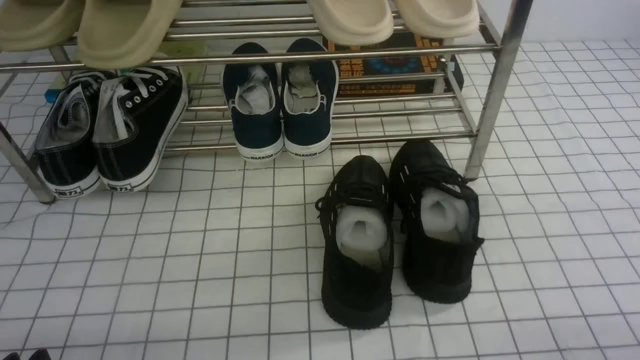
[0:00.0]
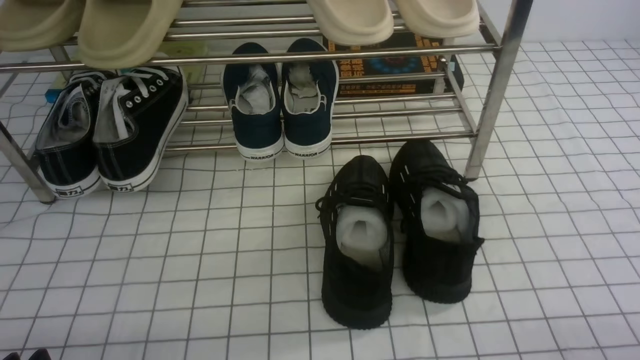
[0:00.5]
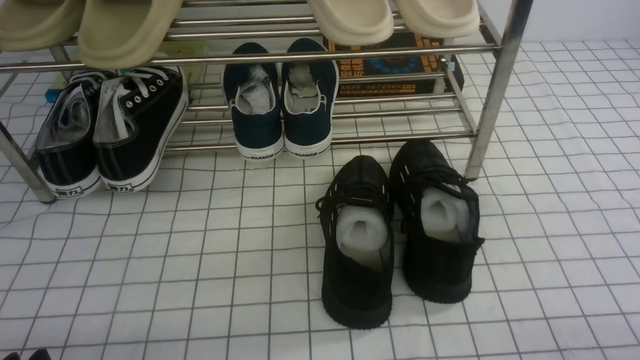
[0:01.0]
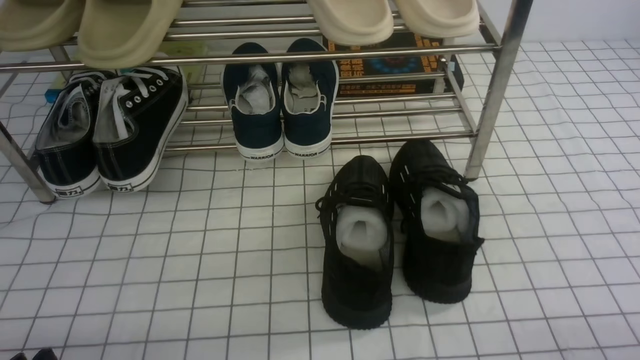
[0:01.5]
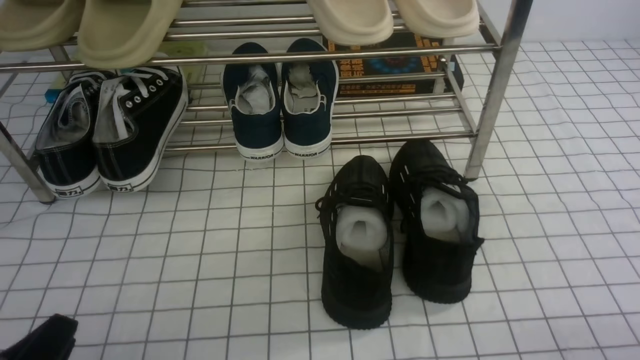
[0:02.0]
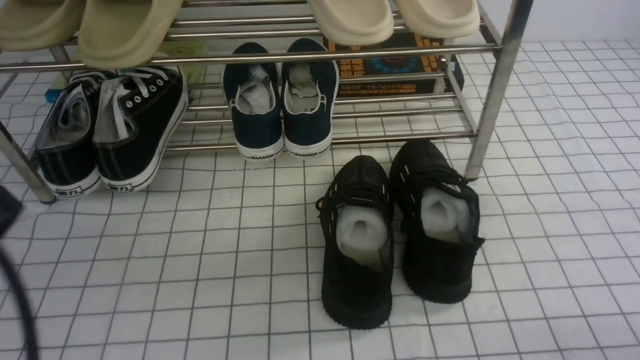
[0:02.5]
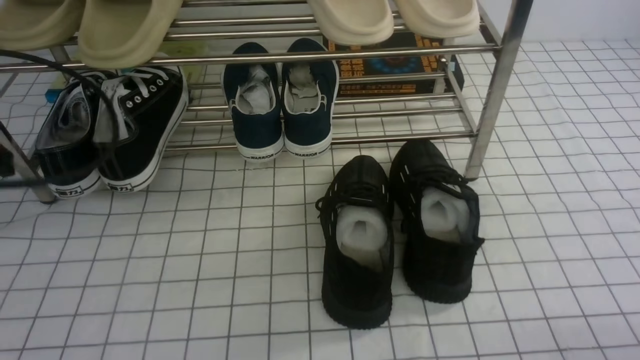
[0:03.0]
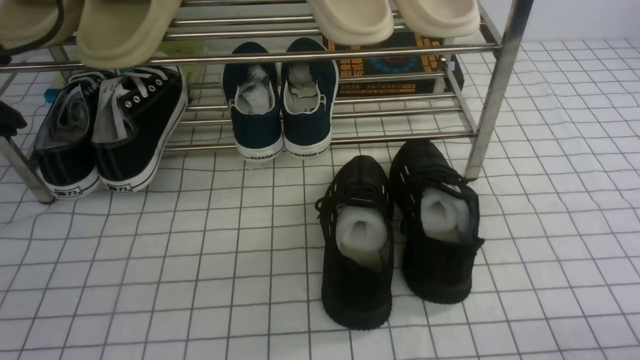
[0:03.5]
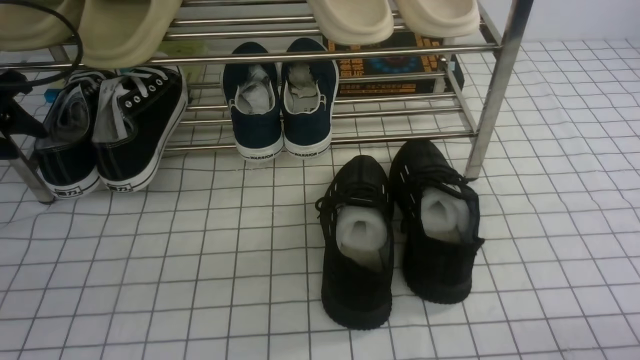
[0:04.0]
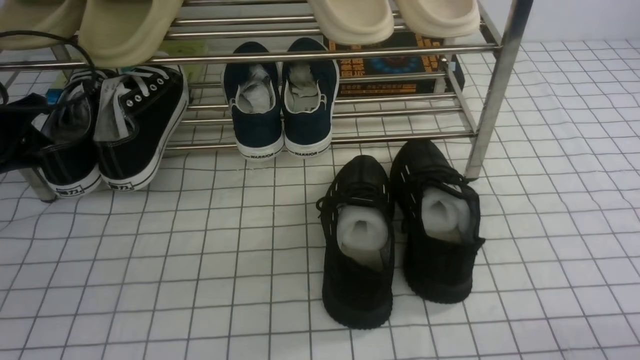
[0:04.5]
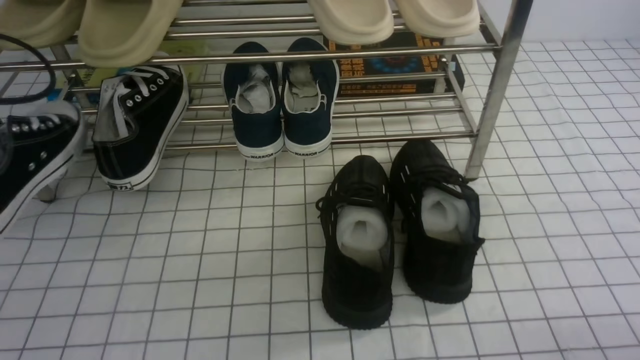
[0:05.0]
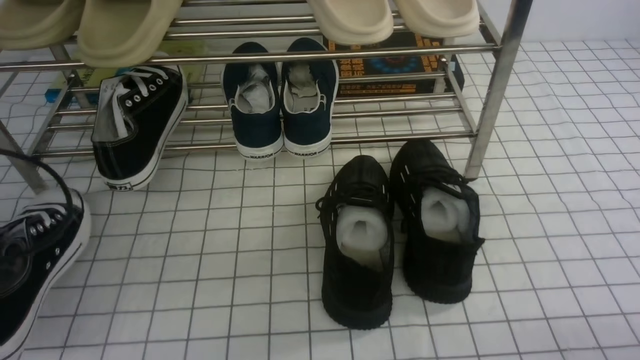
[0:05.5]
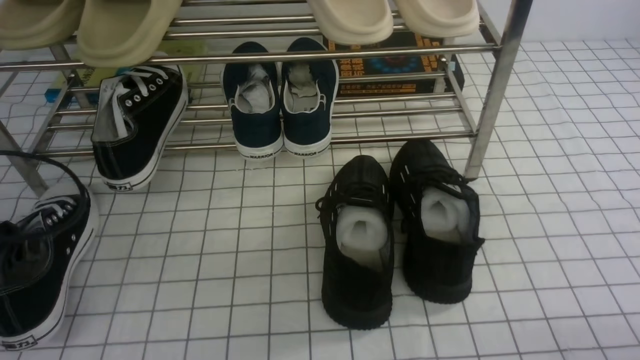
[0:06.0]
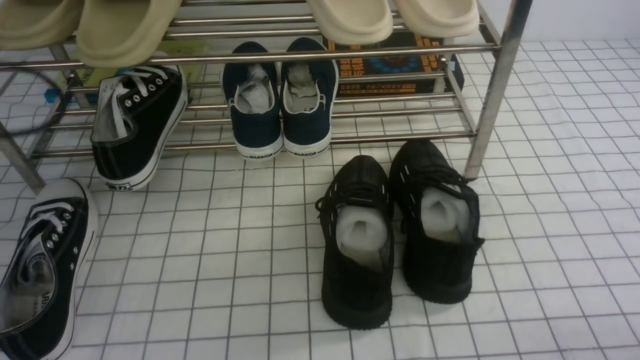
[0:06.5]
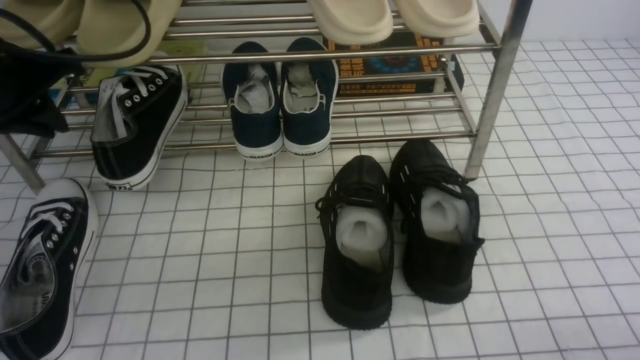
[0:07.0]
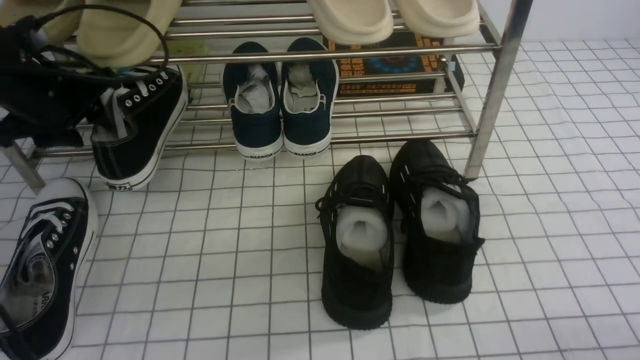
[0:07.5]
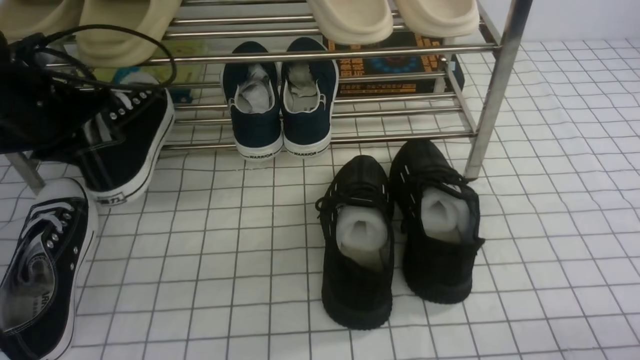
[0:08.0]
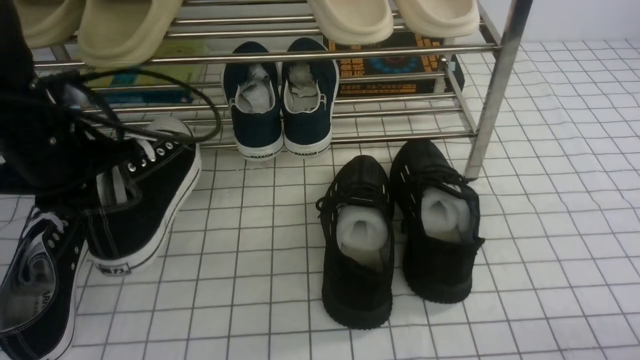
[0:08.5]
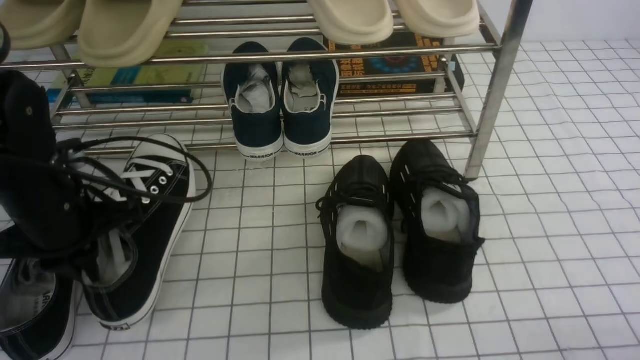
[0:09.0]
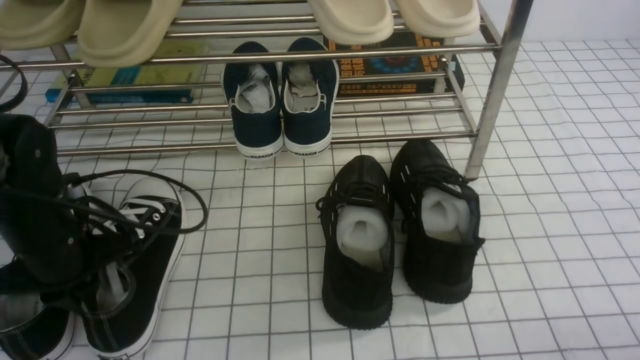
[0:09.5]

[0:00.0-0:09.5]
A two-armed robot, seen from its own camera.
Step, 0:00.0 to 0:04.5: use the left arm to clamp a shoe on the left side of the shoe rack.
Step, 0:05.0 to 0:06.0: Use your left arm to remove the clamped shoe from the shoe rack and put it down.
Step, 0:06.5 to 0:07.5: use the left arm to clamp a shoe on the left side of the shoe rack.
0:02.0 to 0:04.0: The left gripper is displaced forward by some 30 cm, and opens up.
0:04.0 to 0:05.5: The left gripper heads backward, covering about 15 cm, and closes its fingers.
0:05.5 to 0:07.5: The left gripper travels forward by about 20 cm, and opens its fingers.
0:07.5 to 0:09.5: The left gripper travels backward and downward by about 15 cm, and closes up.

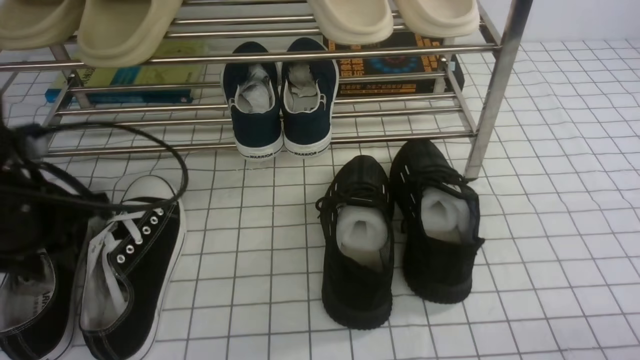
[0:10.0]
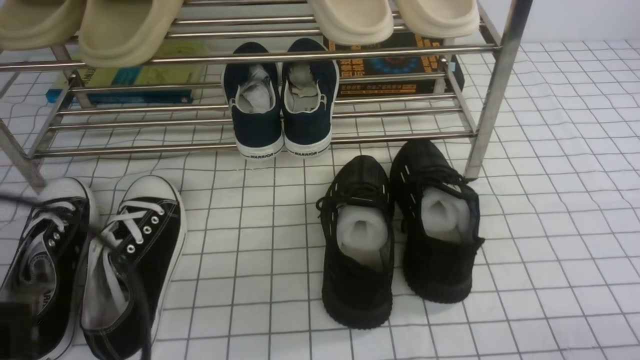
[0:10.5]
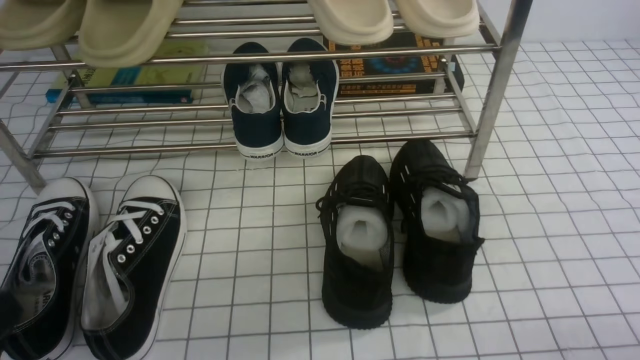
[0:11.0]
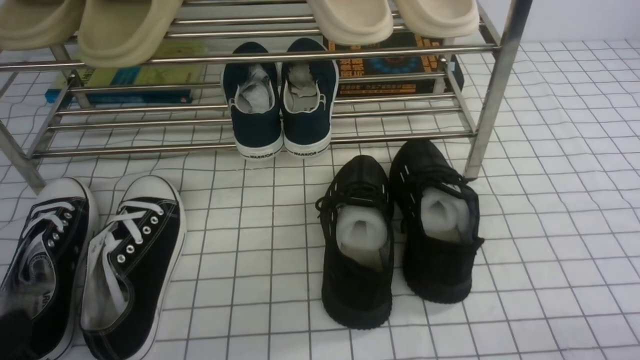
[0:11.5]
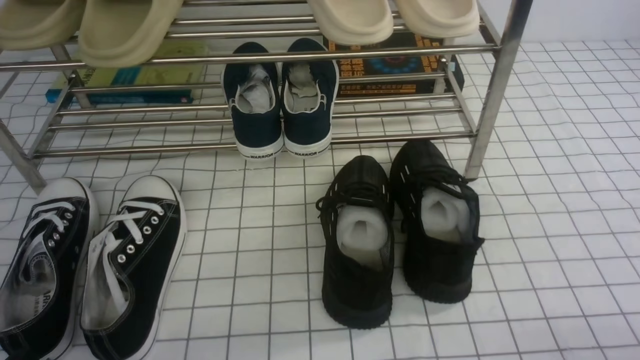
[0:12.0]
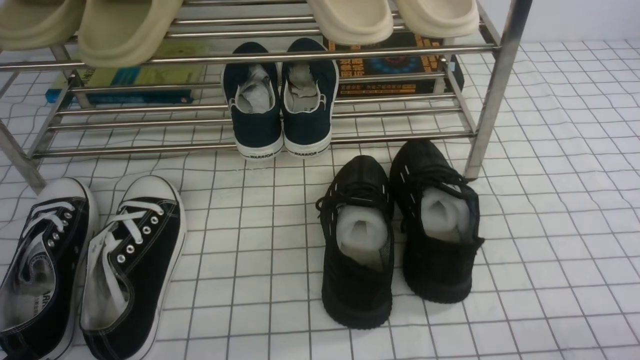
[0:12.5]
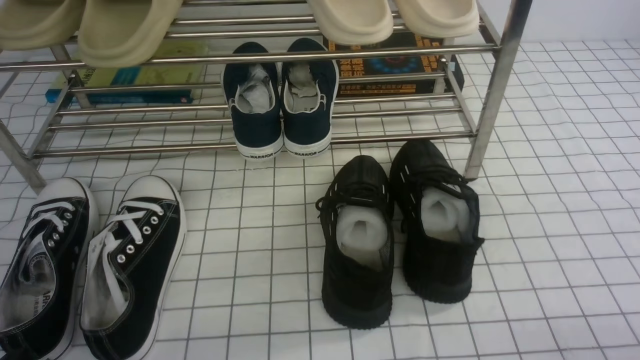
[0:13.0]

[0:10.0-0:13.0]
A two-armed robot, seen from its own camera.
0:10.0 to 0:11.5: The left gripper goes about 20 cm backward, and closes its fingers.

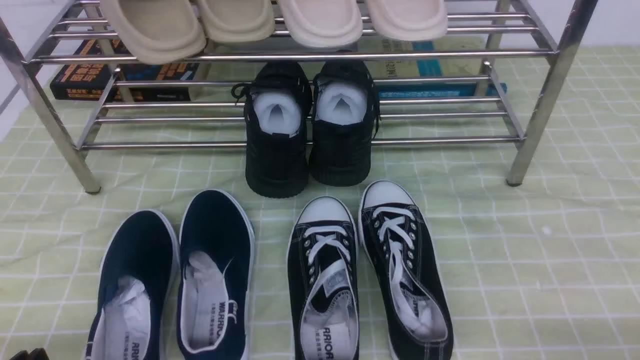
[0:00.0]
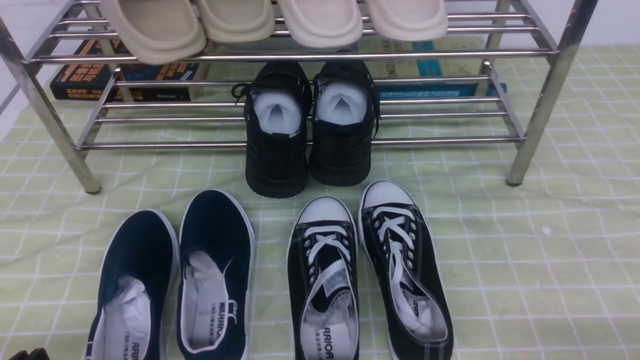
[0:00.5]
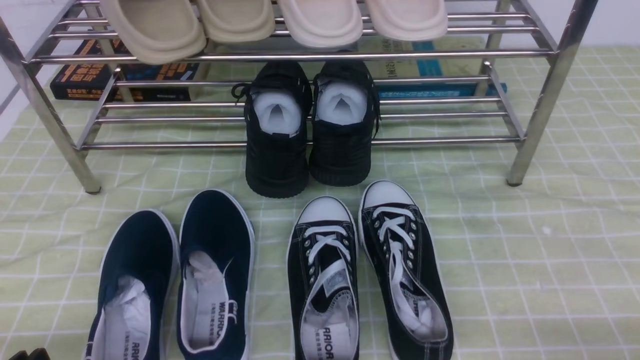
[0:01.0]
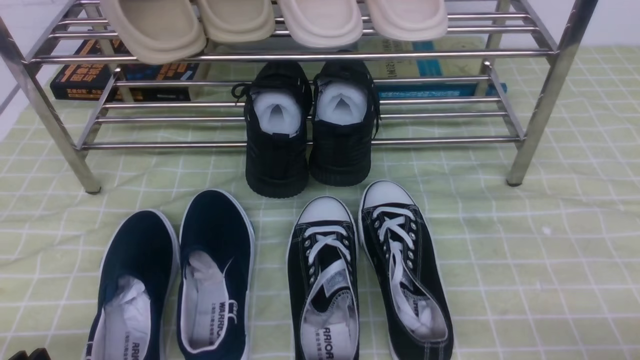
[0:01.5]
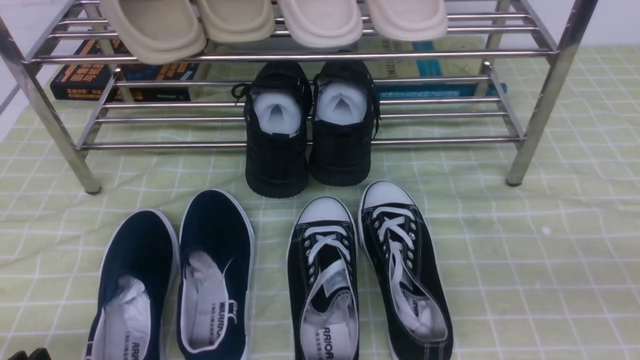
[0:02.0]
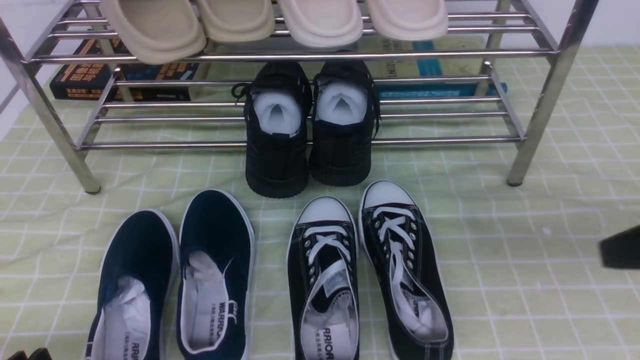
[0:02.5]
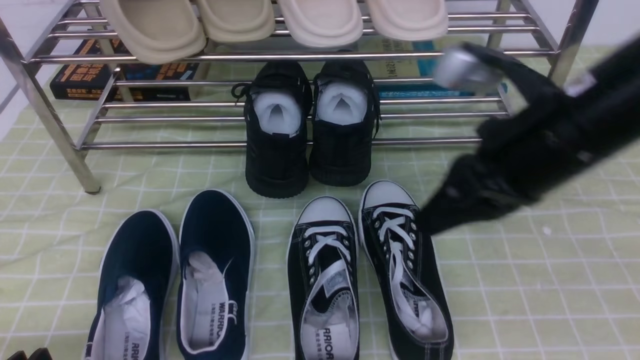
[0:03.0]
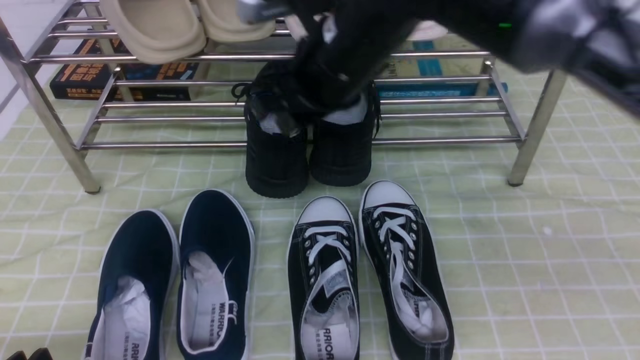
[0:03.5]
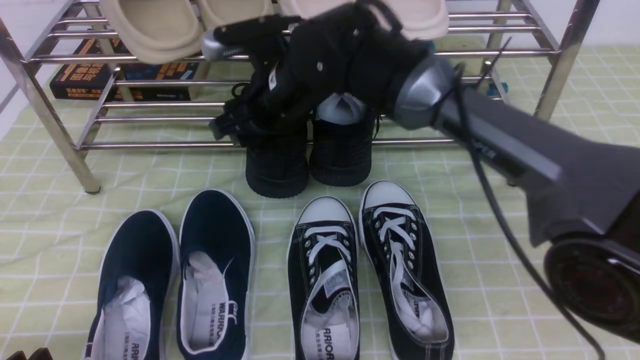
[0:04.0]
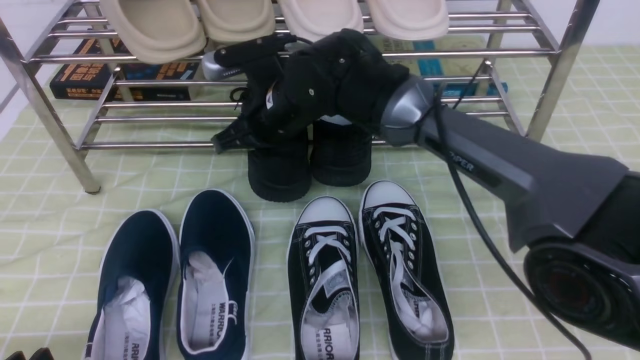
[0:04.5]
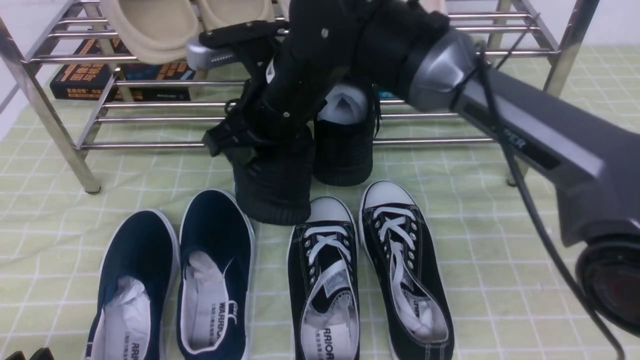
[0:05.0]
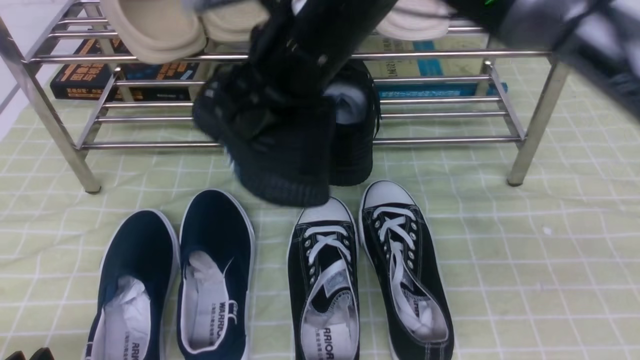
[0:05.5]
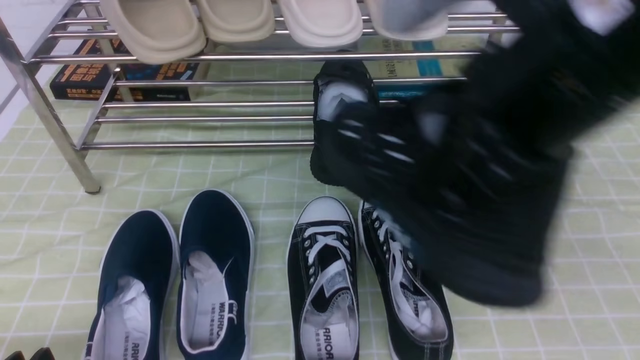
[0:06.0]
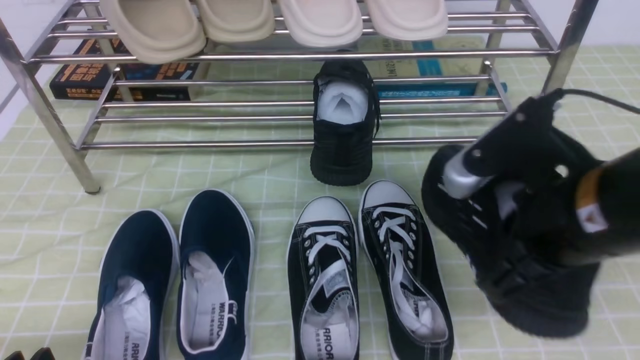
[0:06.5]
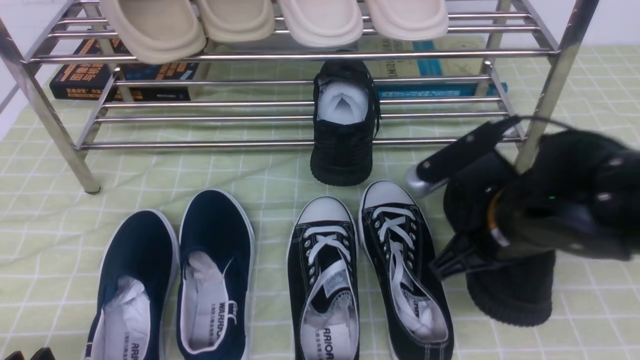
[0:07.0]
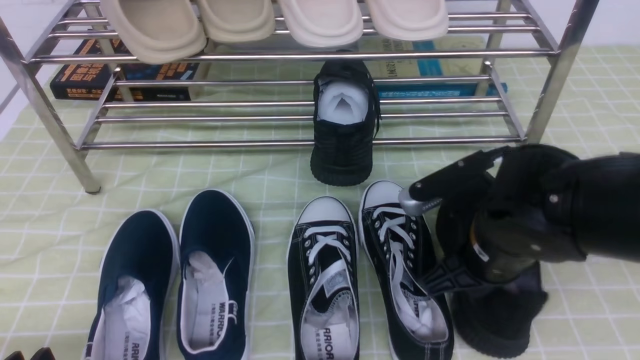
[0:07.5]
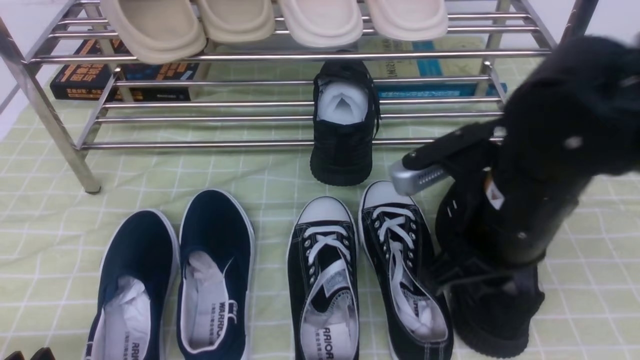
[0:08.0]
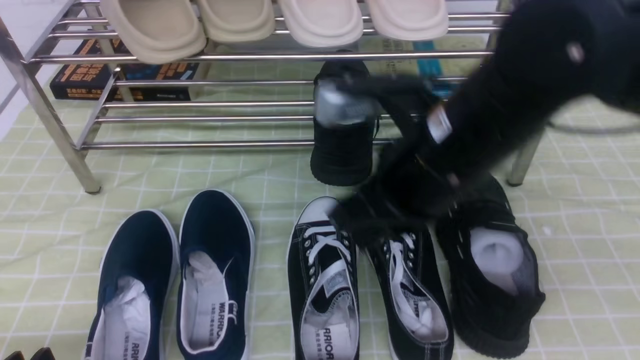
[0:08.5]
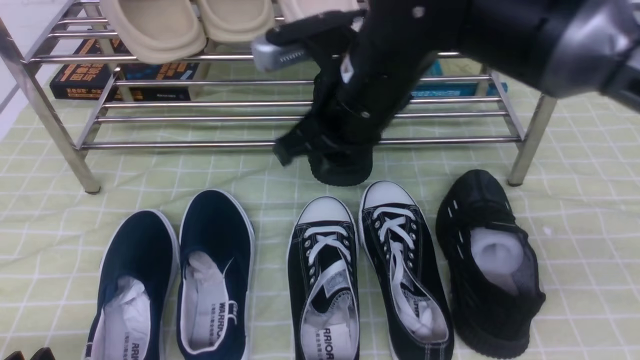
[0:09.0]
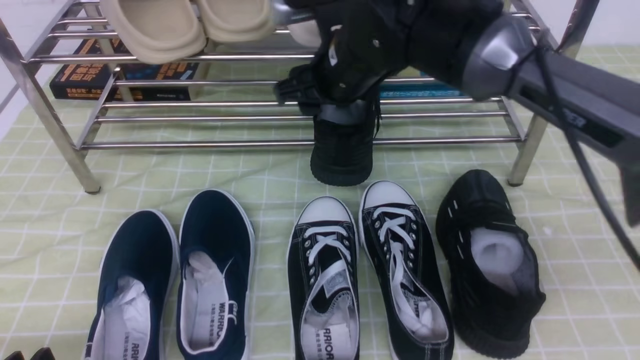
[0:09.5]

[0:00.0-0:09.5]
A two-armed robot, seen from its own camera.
Step, 0:00.0 to 0:04.5: use the right arm to clamp a shoe in the middle of the shoe rack.
Step, 0:05.0 to 0:08.0: use the right arm to take out the clamped shoe from the shoe rack and put it down.
0:00.0 to 0:02.0: The right gripper moves upward, approximately 15 cm, and closes its fingers.
0:02.0 to 0:04.0: The right gripper heads to the left and forward, covering about 50 cm, and opens.
0:04.0 to 0:05.5: The right gripper goes about 15 cm upward and backward, and closes up.
0:05.5 to 0:07.5: The right gripper moves downward and to the right, roughly 20 cm, and opens up.
0:07.5 to 0:09.5: The right gripper travels forward, to the left and upward by about 20 cm, and opens its fingers.
